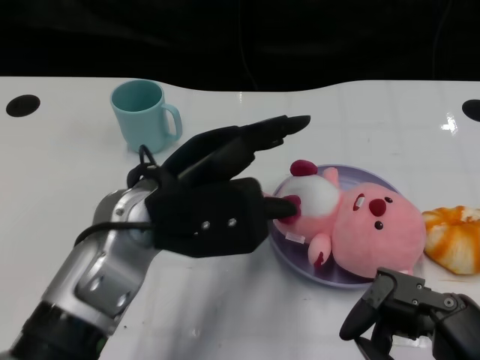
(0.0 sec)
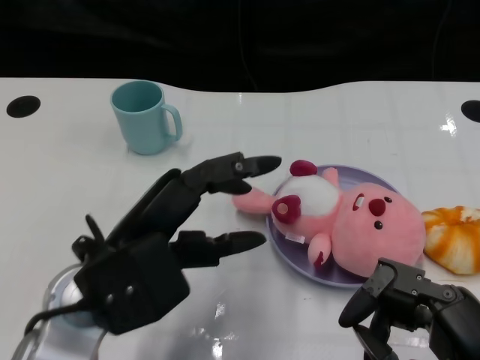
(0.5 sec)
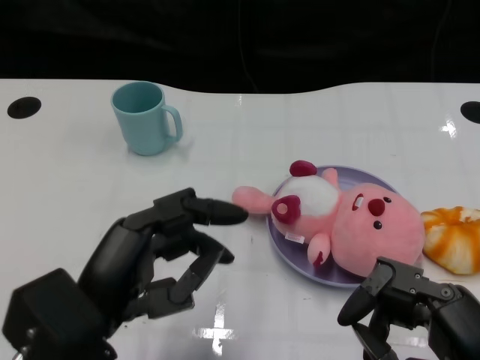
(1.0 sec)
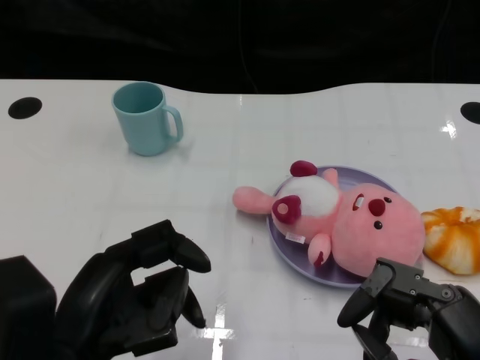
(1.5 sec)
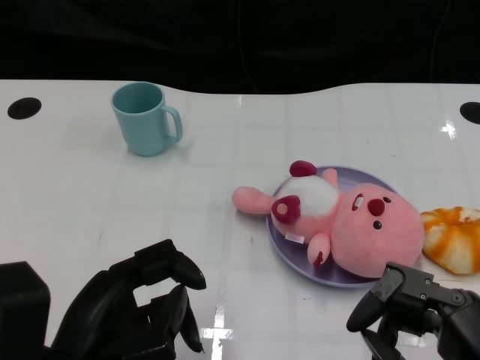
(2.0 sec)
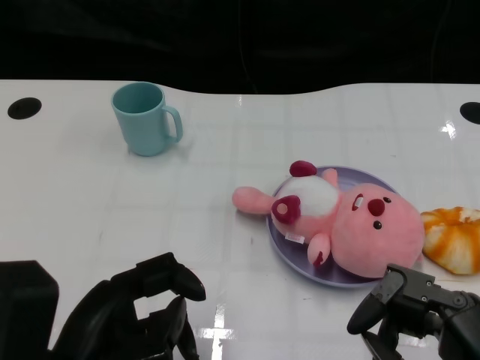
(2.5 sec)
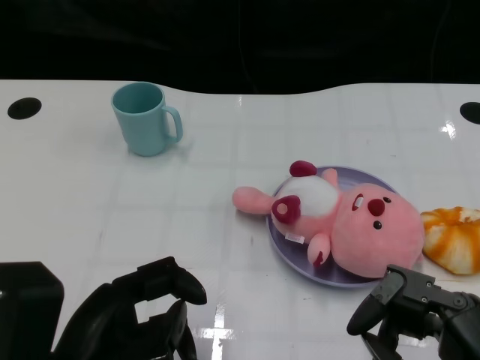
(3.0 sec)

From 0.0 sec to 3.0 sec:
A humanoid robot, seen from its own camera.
Task of the whole recording: Pick up the doll on one side of the plate and place it into the plate.
From 0.0 sec to 1.5 sec: The left hand travels backward and to the left by some 15 cm.
From 1.5 sec to 3.0 sec: There are only small adjustments of the hands.

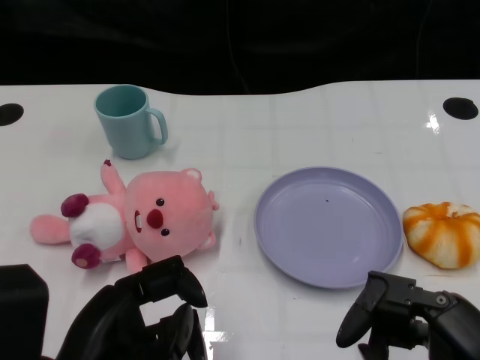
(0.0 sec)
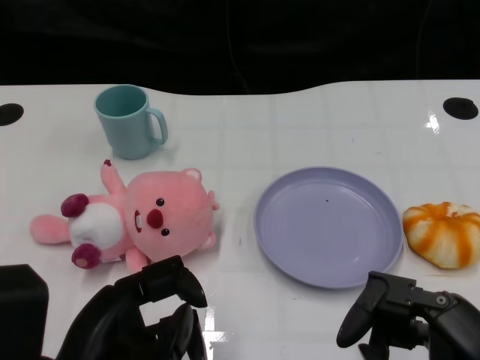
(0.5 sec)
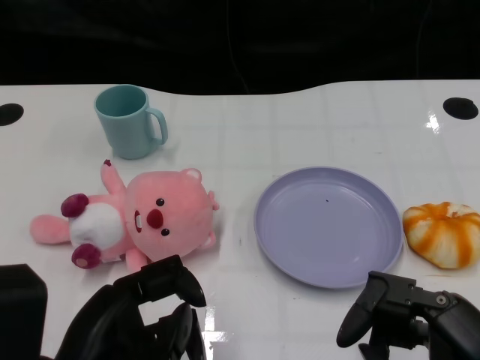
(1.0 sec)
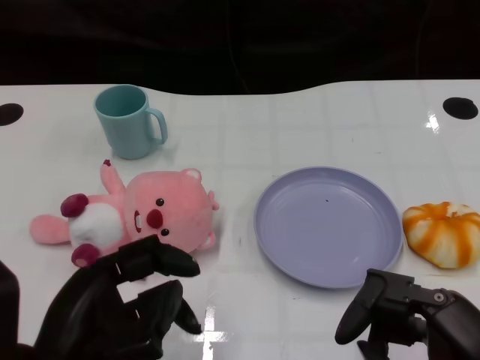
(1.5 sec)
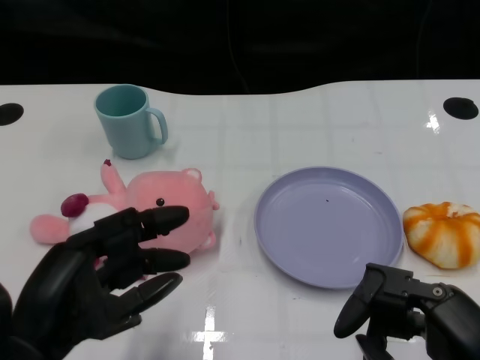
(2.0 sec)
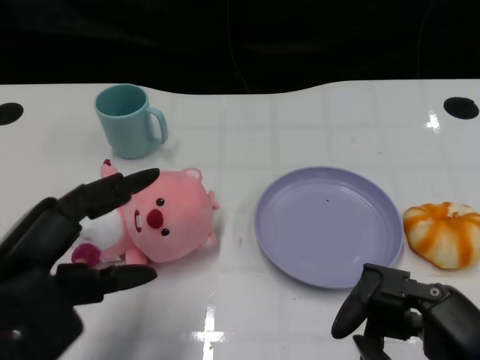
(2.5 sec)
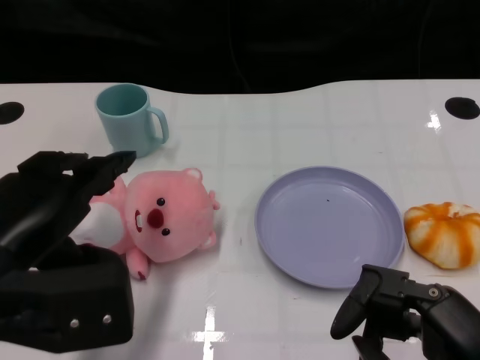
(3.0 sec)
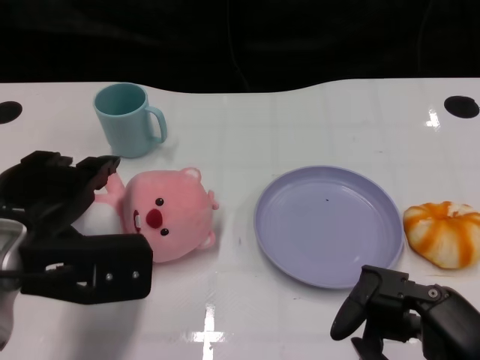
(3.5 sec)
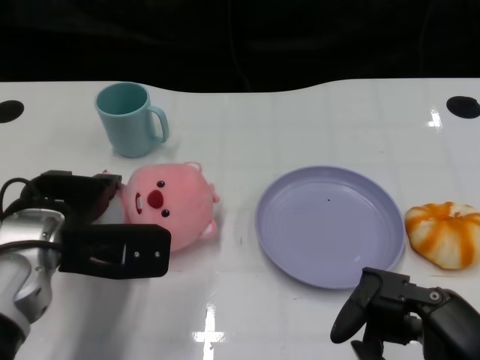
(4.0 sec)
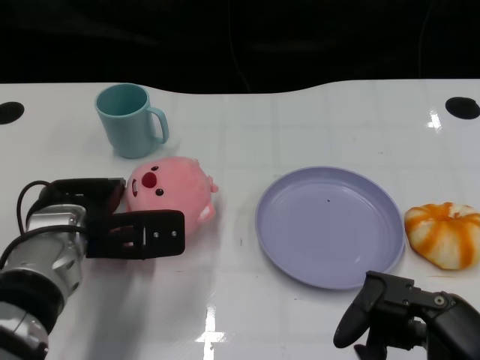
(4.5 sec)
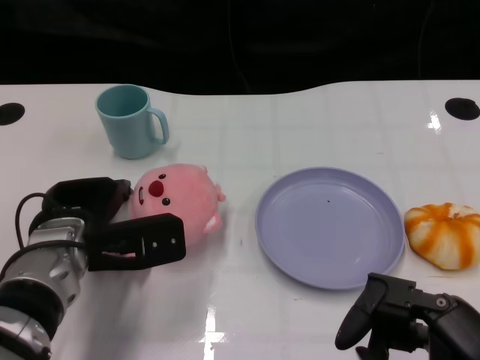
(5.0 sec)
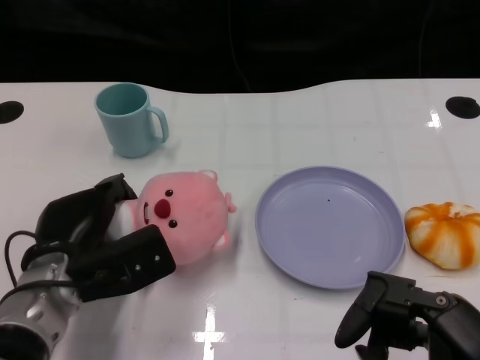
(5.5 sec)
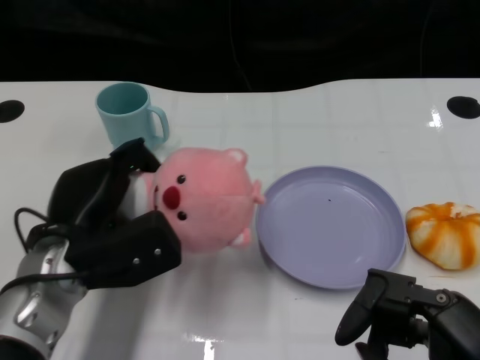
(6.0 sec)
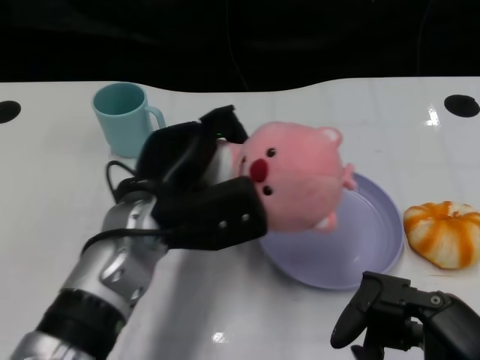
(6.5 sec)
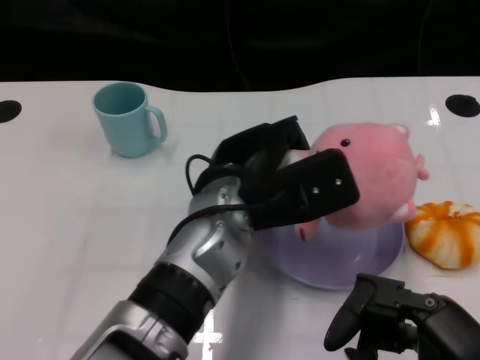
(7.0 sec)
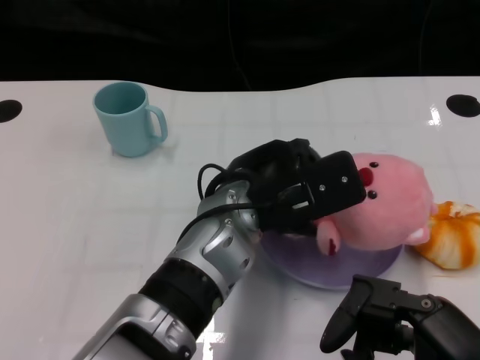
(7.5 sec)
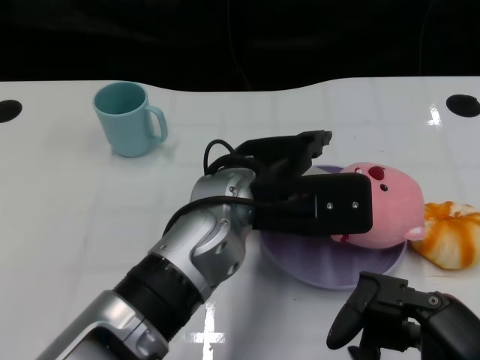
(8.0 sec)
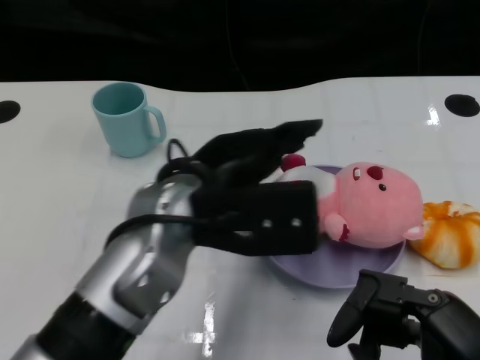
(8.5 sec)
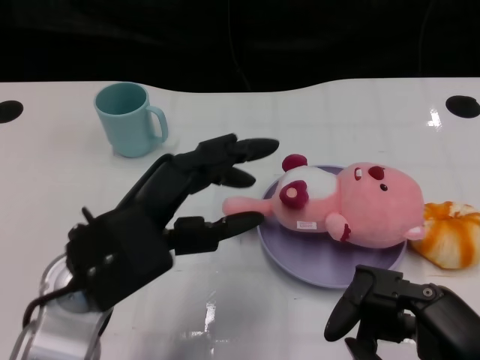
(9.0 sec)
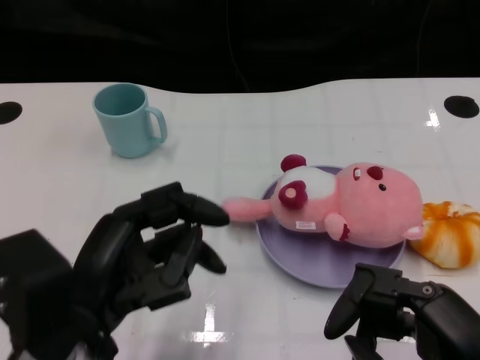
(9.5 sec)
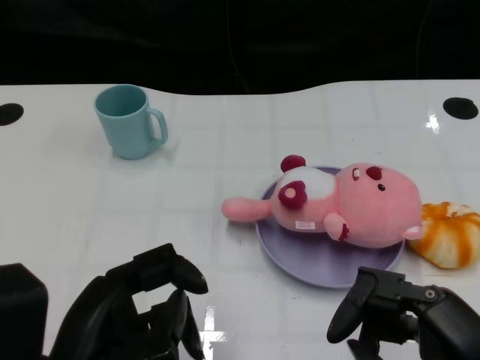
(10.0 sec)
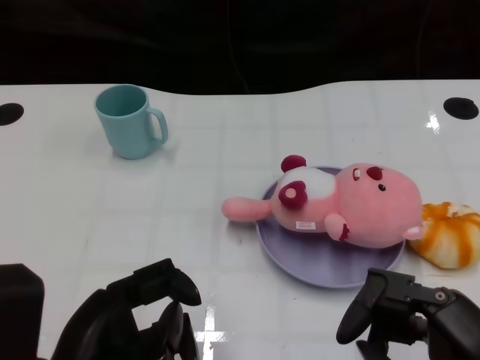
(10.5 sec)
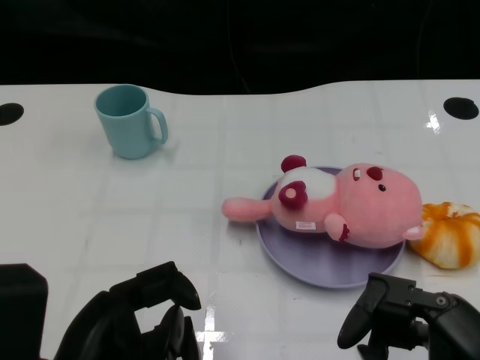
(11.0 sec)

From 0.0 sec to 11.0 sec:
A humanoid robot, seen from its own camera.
Task of the whole recording: Pick up the doll on one side of the plate and place it into the plate.
Step, from 1.5 sec to 5.5 sec: Grasp the pink doll with the left gripper.
Step, from 6.0 sec to 8.0 sec: Place the pink doll into the plate with the left gripper.
From 2.0 sec to 3.5 sec: The left hand travels forward by about 10 cm.
From 3.5 sec to 5.5 sec: The left hand heads downward, covering about 10 cm.
From 5.5 sec to 7.5 sec: The left hand moves to the right and upward, approximately 20 cm.
From 7.5 sec to 9.0 sec: The left hand goes roughly 15 cm to the left and backward.
From 9.0 sec to 11.0 sec: The left hand is displaced backward by roughly 10 cm.
